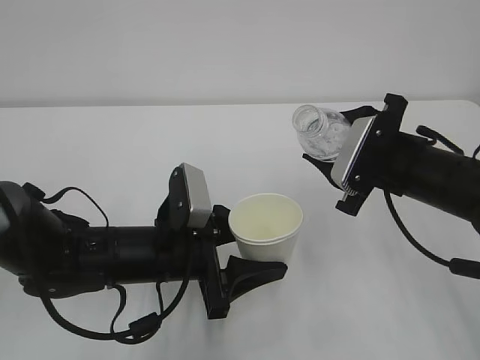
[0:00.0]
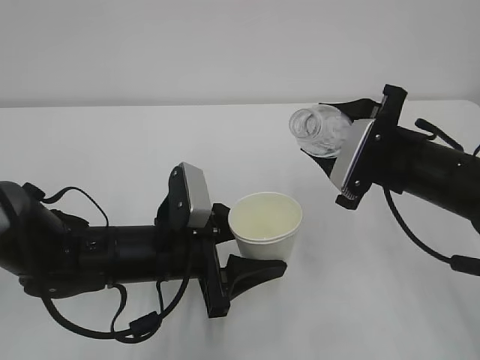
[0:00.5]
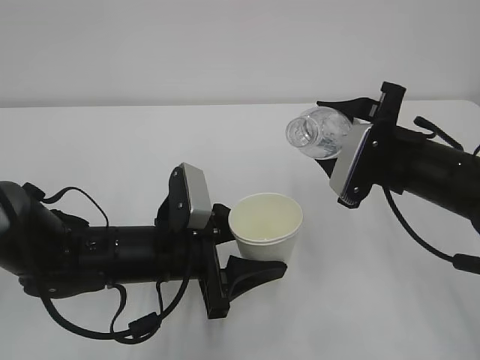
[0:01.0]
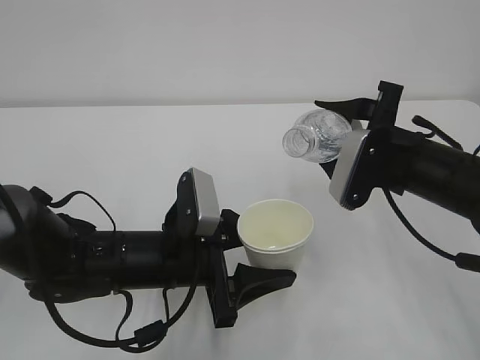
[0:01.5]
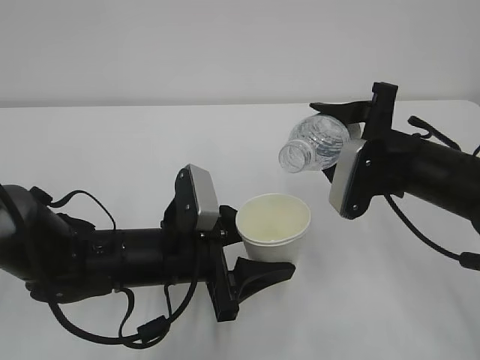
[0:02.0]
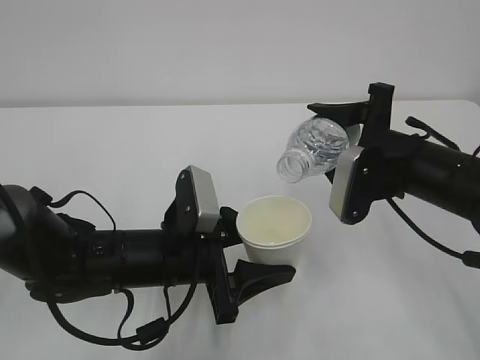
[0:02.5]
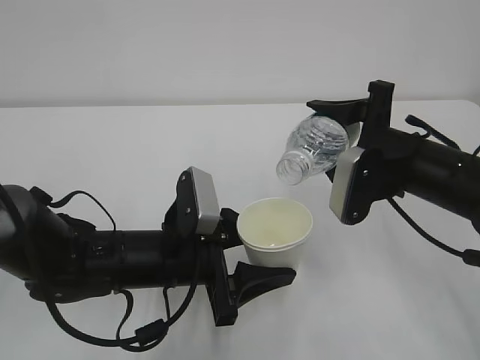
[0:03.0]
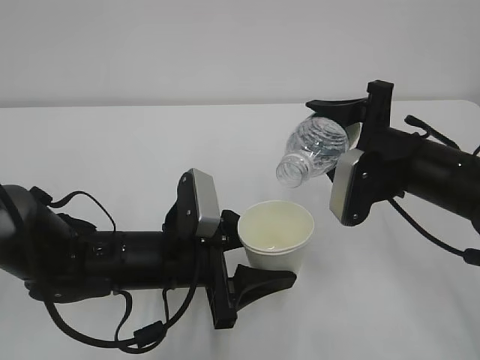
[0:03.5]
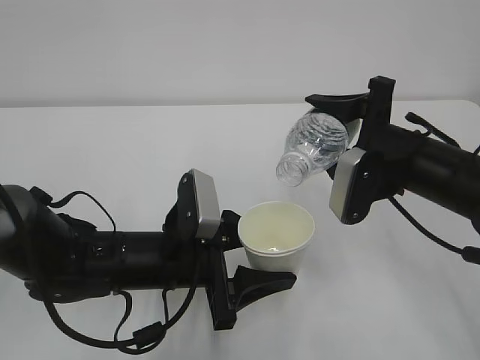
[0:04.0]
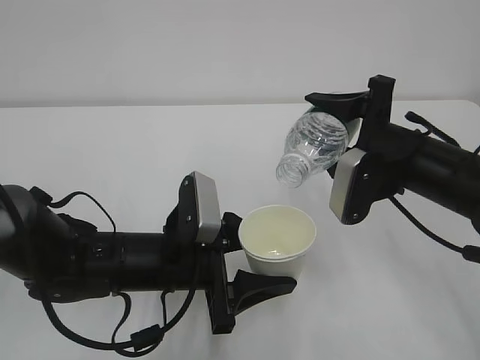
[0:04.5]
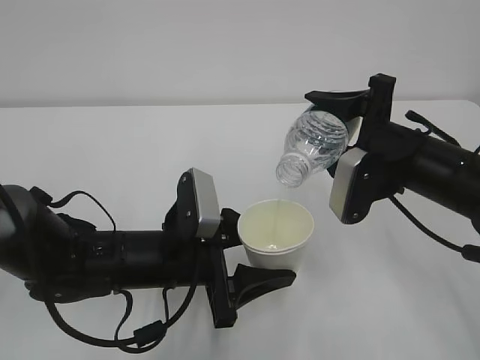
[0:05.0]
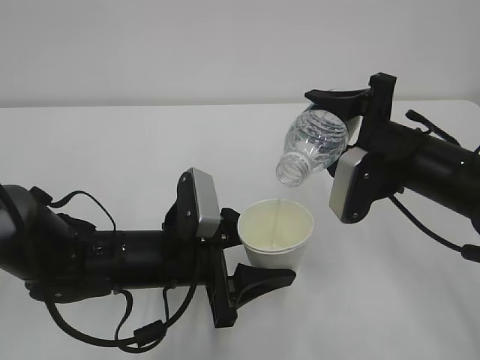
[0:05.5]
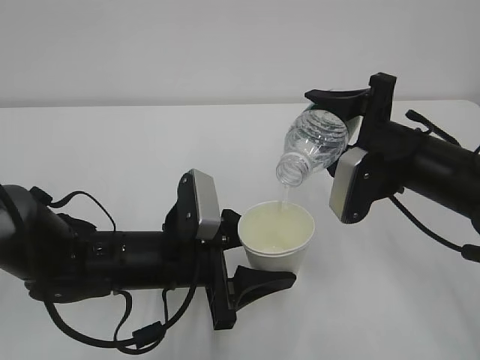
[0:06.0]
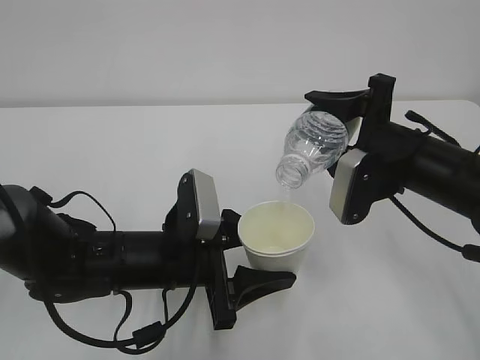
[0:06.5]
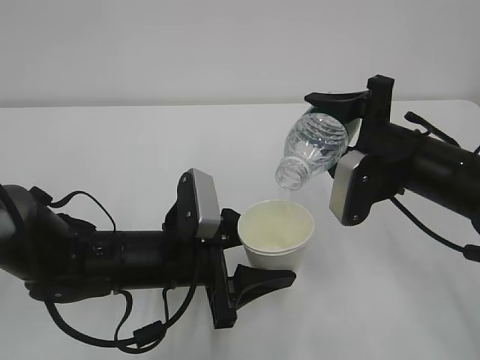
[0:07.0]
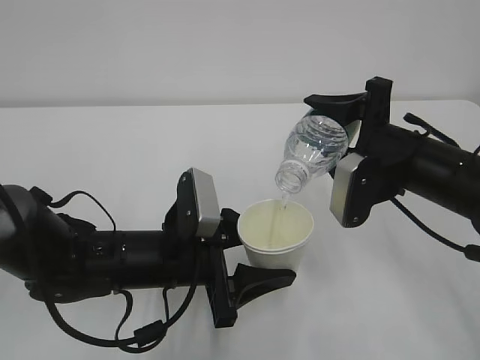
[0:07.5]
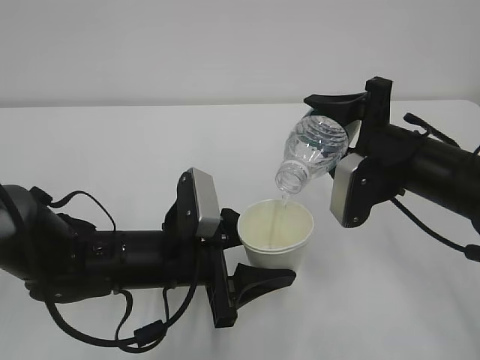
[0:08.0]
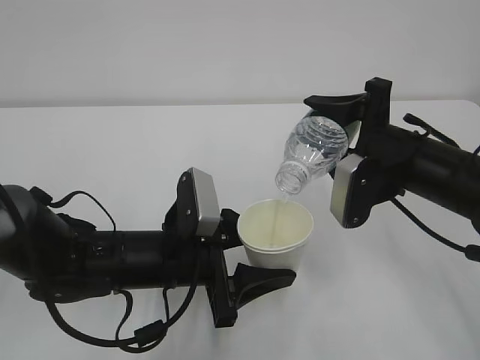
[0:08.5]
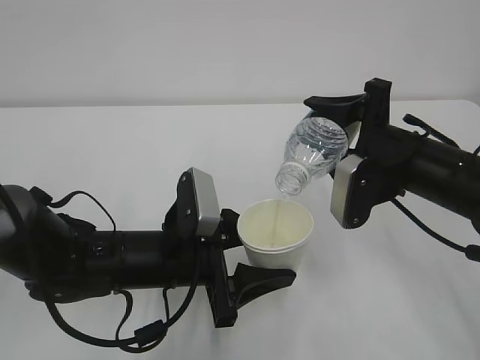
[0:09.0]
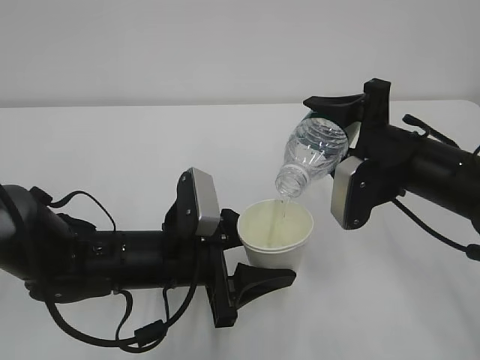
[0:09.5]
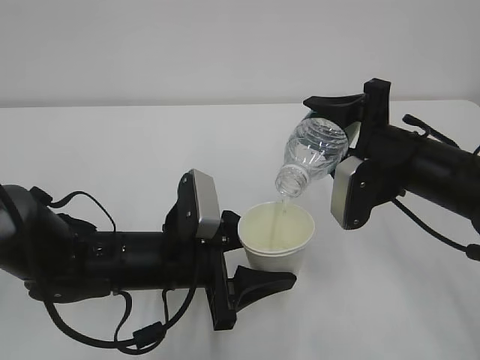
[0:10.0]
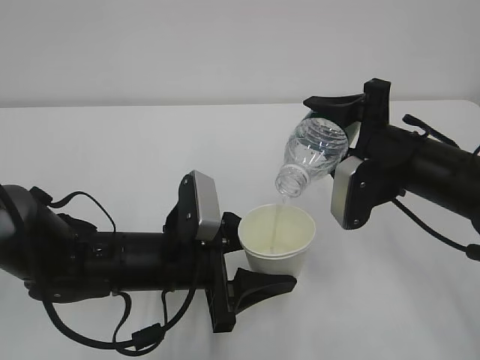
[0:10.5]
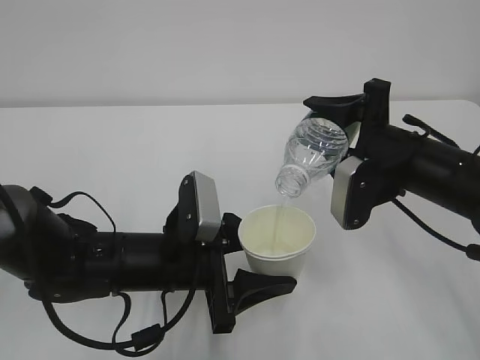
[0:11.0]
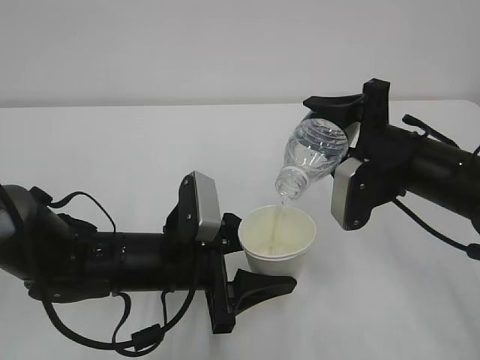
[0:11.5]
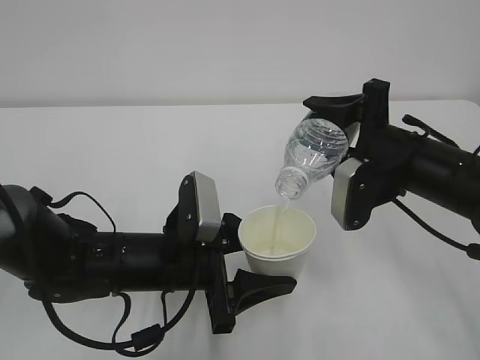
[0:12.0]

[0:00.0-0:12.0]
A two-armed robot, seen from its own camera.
0:02.0 to 0:04.0: The grippers move only a little.
0:04.0 to 0:08.0: The two grippers keep their place.
0:08.0 to 0:12.0: Neither gripper changes place.

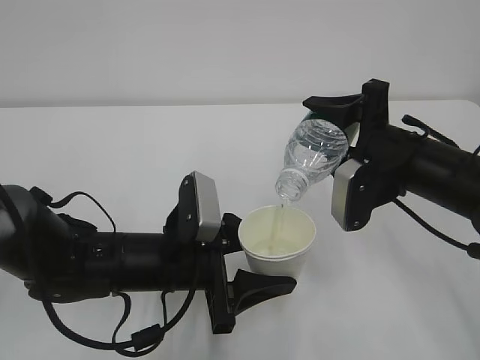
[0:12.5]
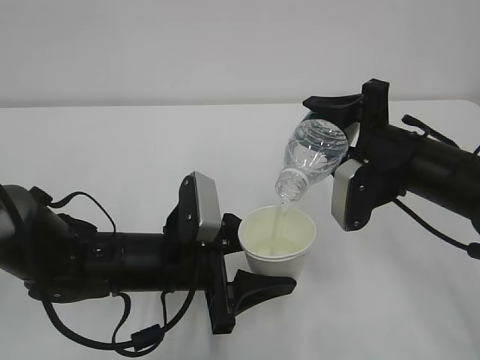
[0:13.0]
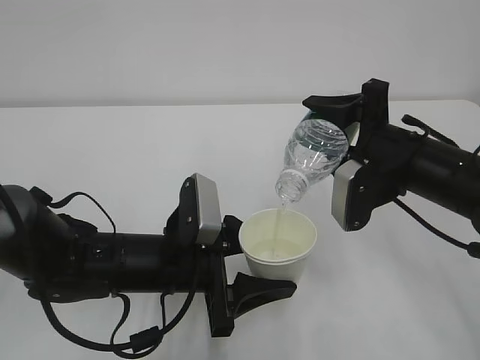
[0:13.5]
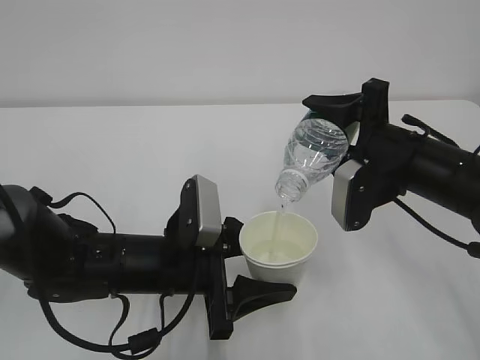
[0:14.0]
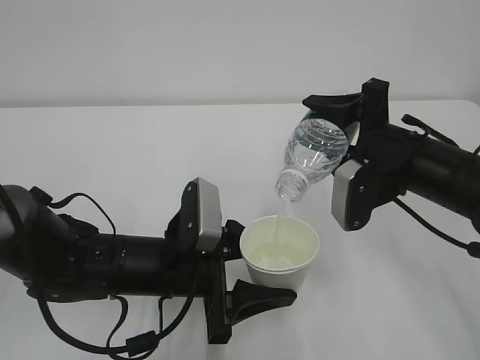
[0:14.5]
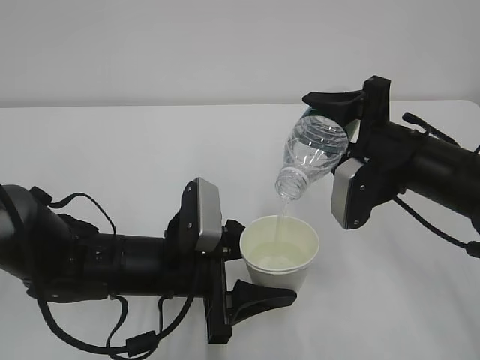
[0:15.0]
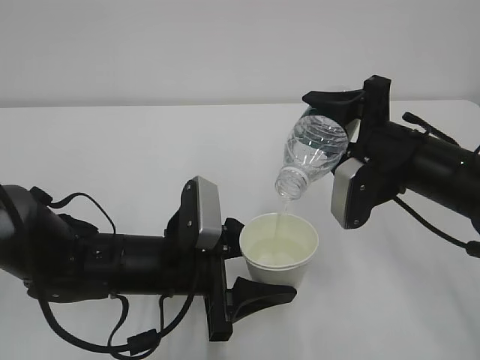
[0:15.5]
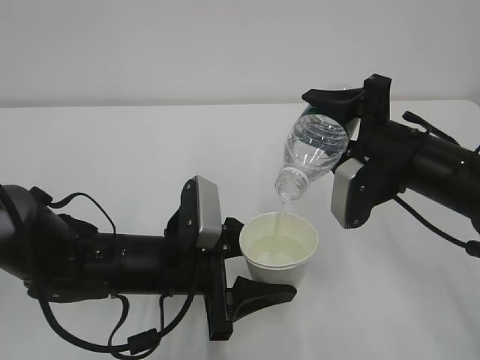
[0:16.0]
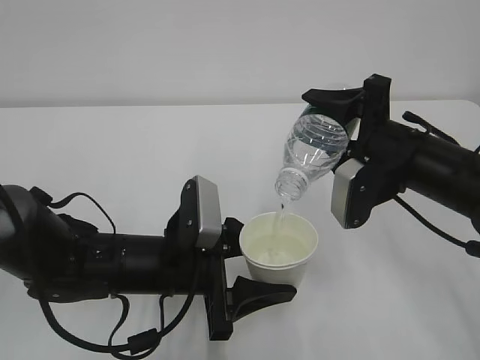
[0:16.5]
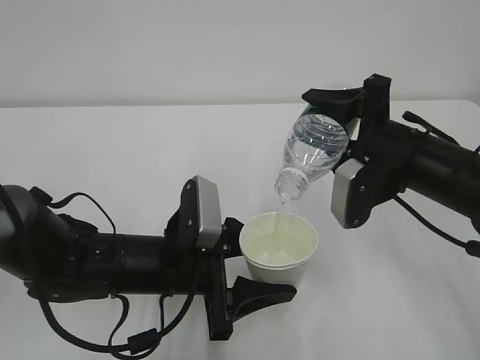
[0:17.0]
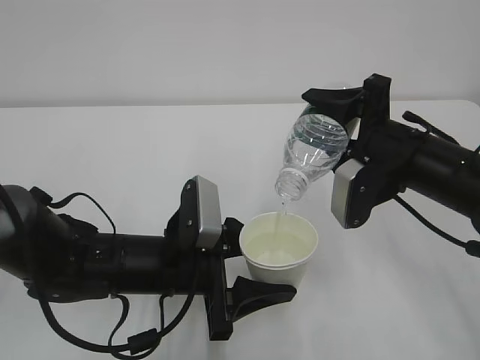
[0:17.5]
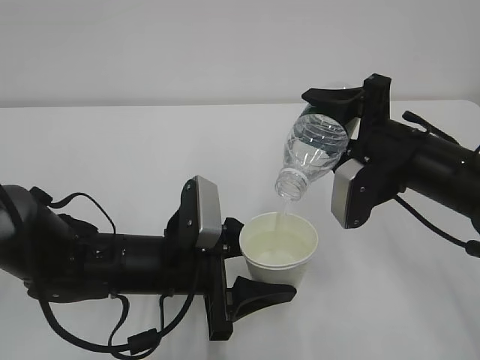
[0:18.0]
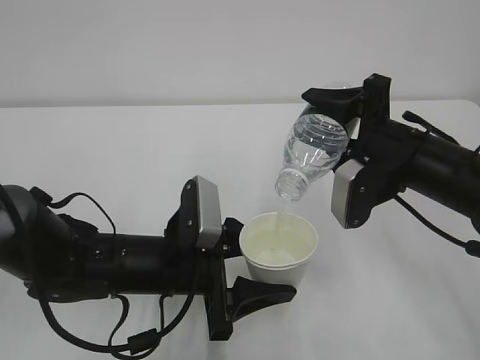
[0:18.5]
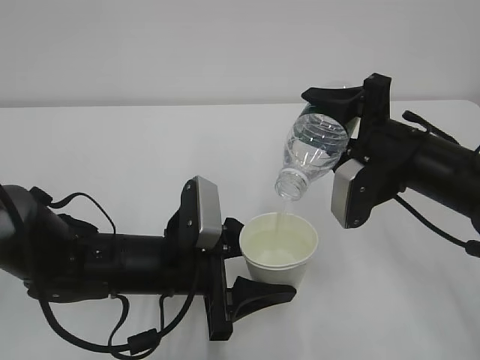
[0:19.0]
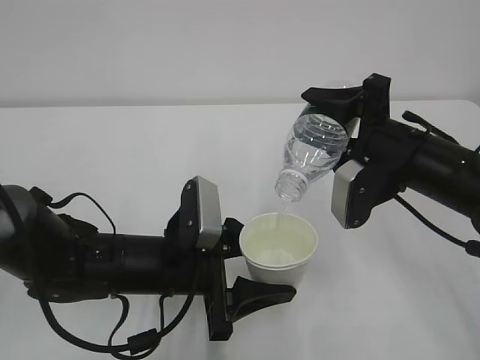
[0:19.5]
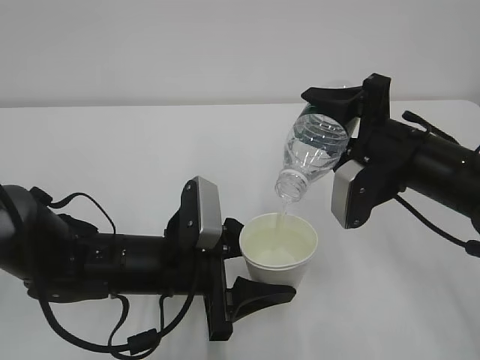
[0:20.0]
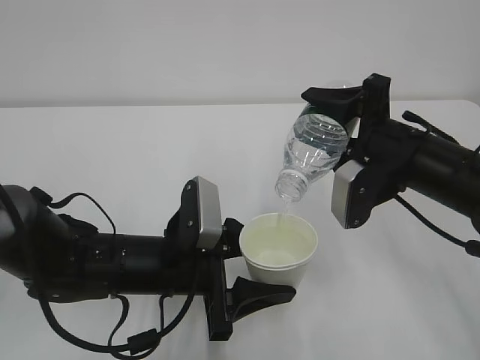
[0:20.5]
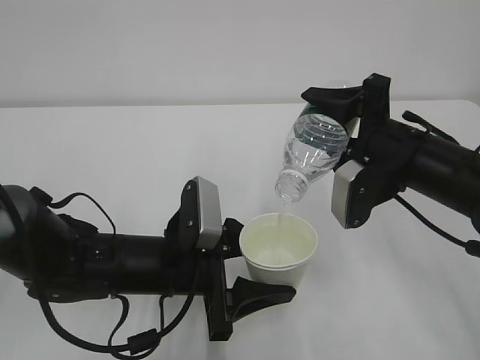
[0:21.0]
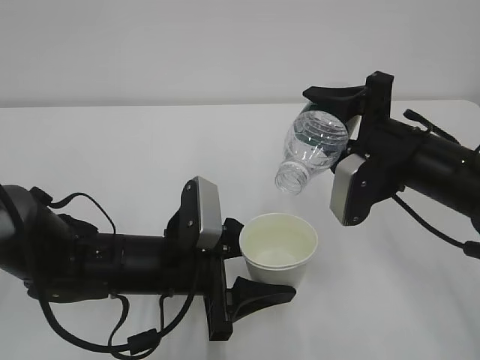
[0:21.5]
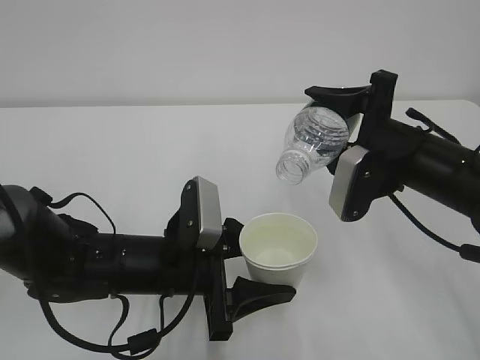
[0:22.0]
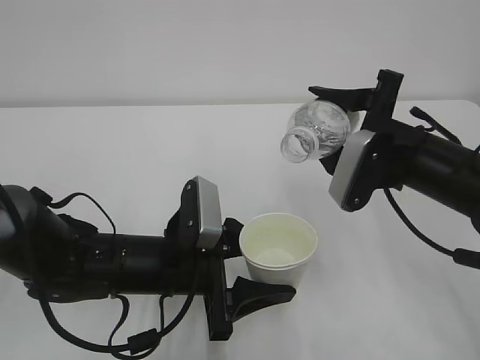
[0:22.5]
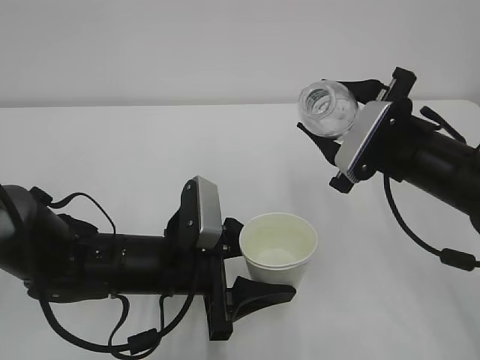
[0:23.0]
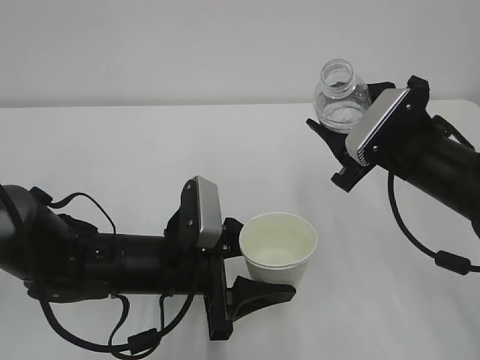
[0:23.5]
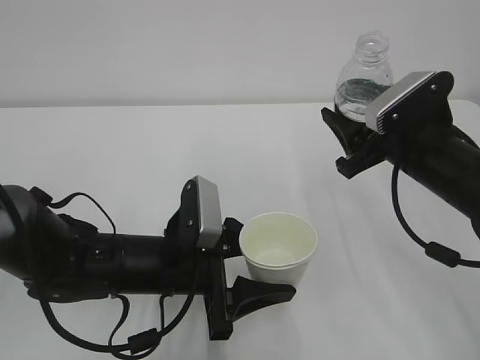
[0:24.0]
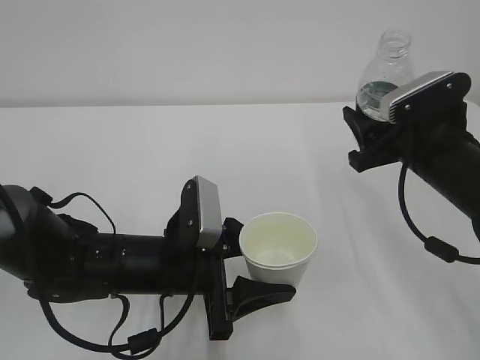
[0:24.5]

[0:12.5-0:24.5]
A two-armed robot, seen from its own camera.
0:12.5 to 0:16.5: Both grippers stay put.
0:16.5 to 0:20.5: Both grippers stay put.

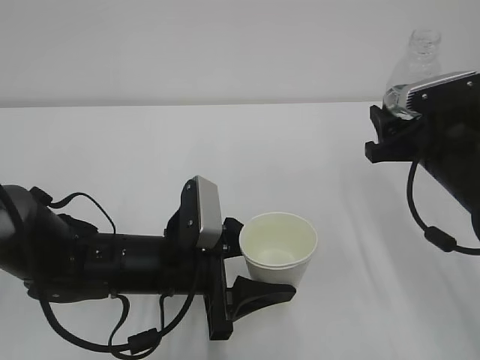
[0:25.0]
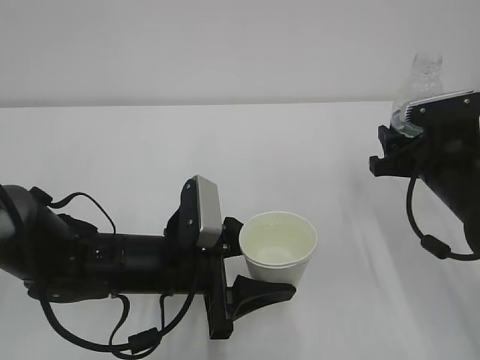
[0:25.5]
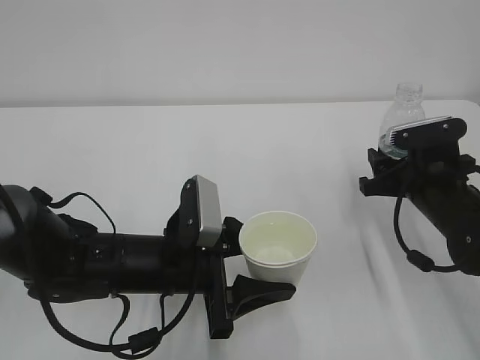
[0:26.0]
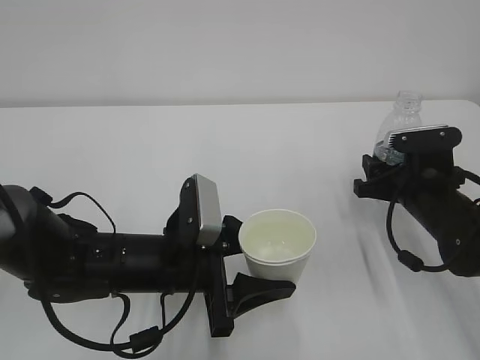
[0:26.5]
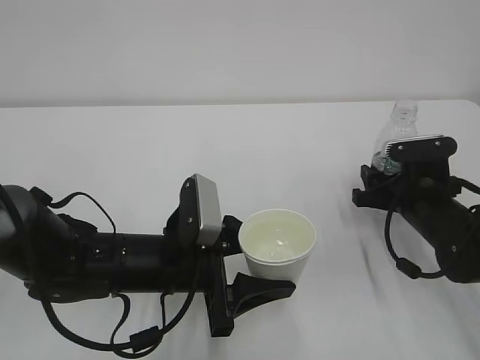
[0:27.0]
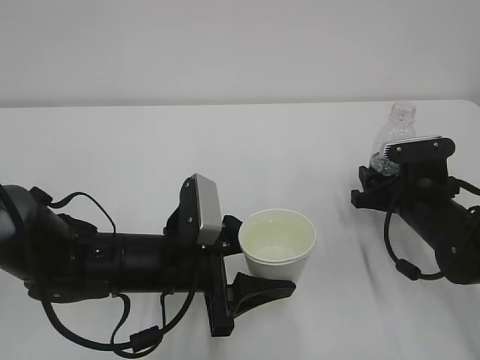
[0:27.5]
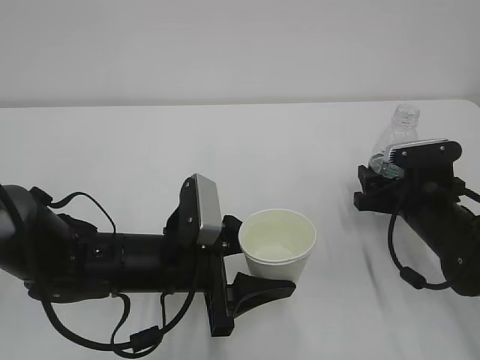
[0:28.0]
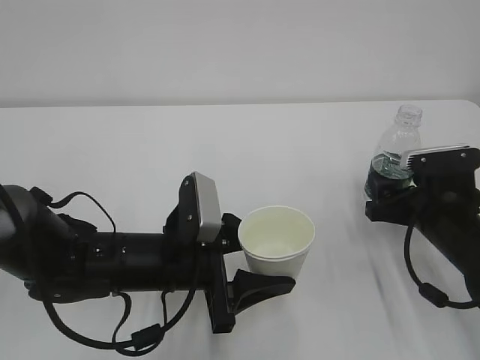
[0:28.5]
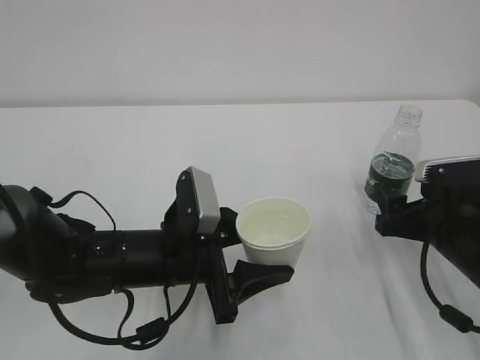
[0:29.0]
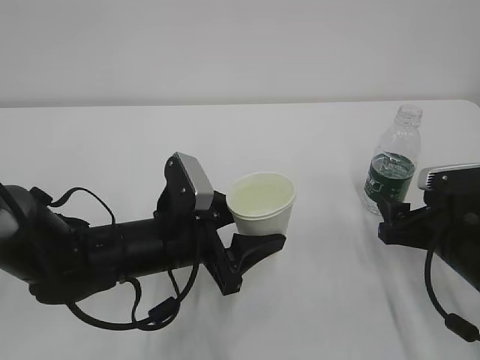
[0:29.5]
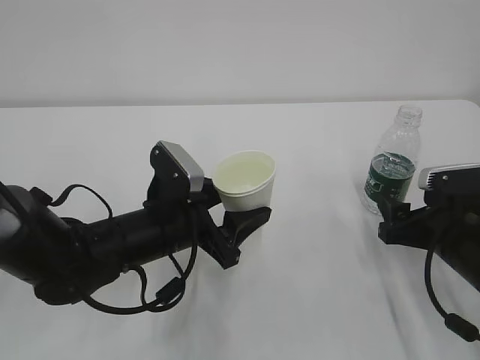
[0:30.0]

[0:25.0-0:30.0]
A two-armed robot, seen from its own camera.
0:25.0 to 0:27.5: The right gripper heads downward, covering approximately 10 cm.
0:27.5 to 0:30.0: The right gripper moves backward, approximately 5 cm, and opens.
